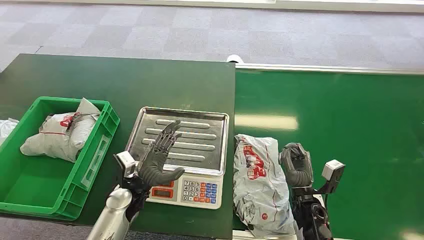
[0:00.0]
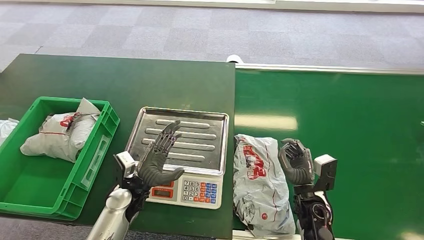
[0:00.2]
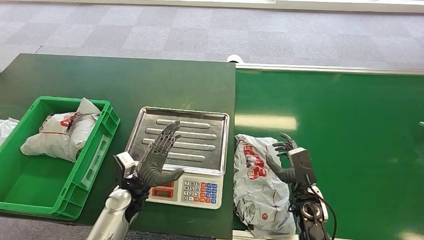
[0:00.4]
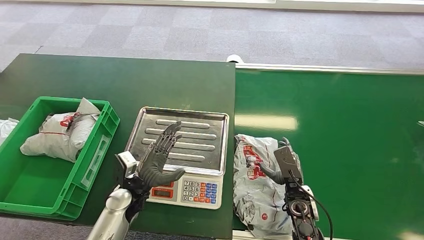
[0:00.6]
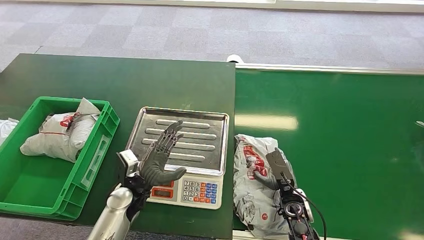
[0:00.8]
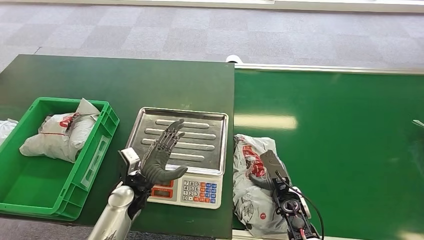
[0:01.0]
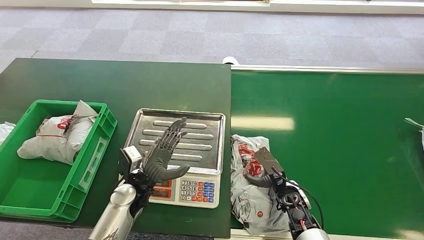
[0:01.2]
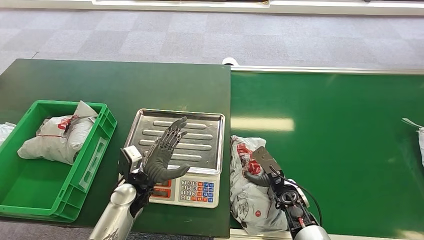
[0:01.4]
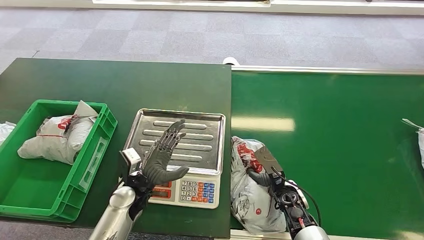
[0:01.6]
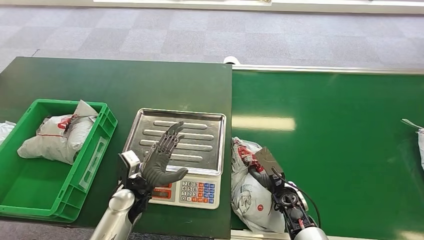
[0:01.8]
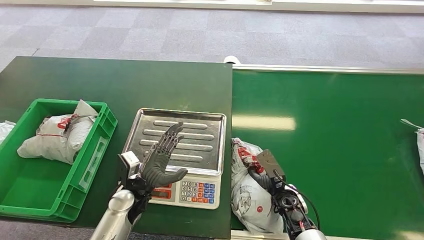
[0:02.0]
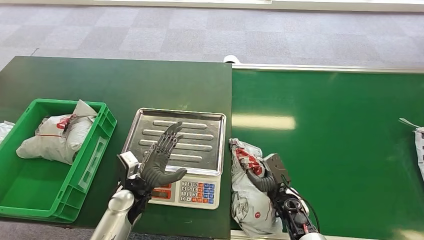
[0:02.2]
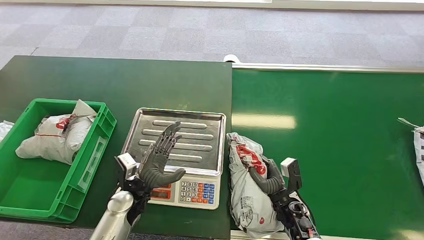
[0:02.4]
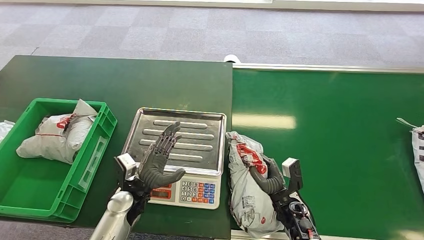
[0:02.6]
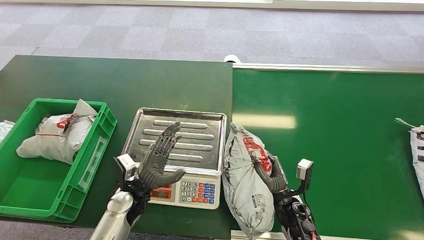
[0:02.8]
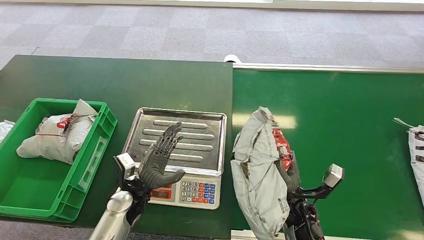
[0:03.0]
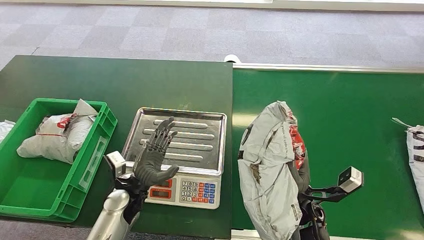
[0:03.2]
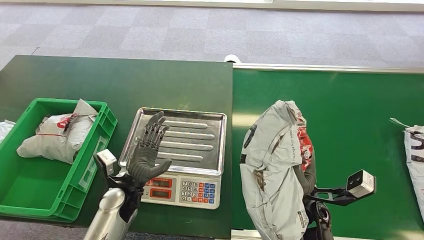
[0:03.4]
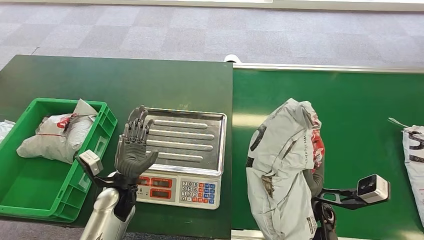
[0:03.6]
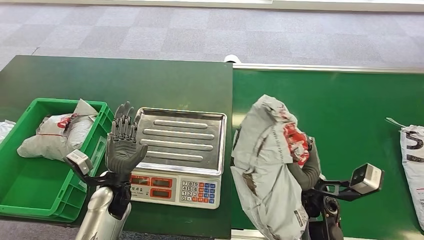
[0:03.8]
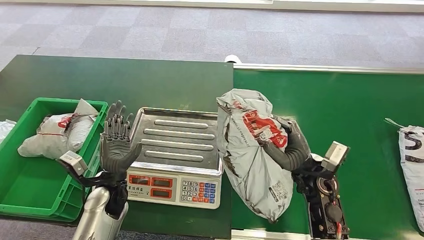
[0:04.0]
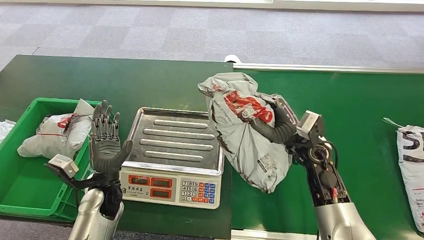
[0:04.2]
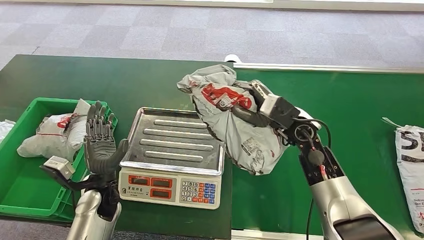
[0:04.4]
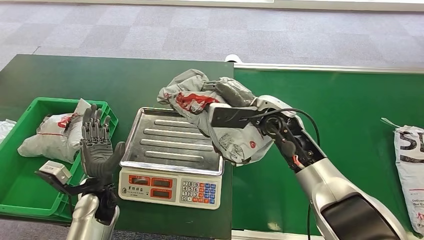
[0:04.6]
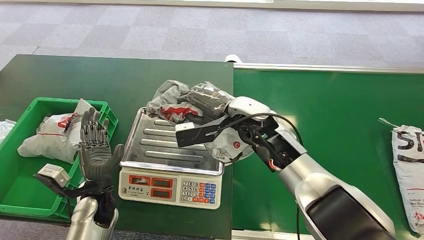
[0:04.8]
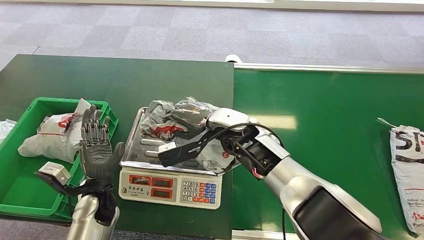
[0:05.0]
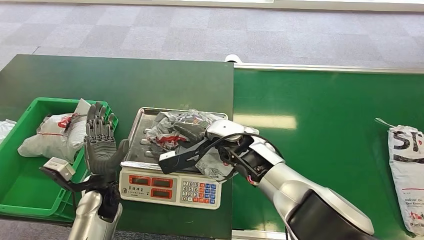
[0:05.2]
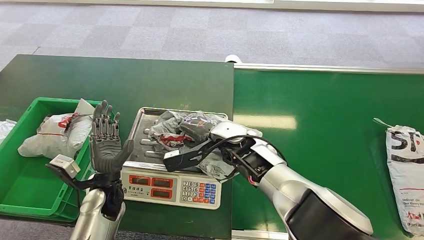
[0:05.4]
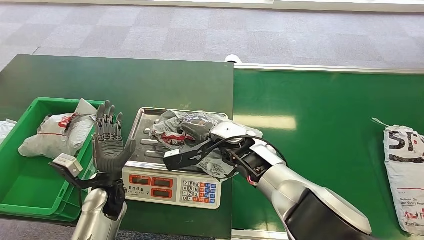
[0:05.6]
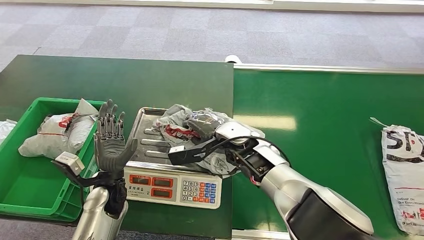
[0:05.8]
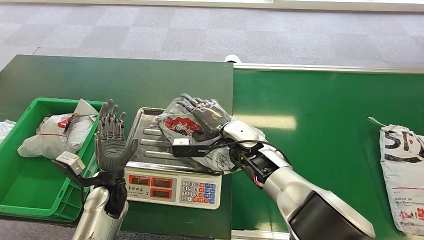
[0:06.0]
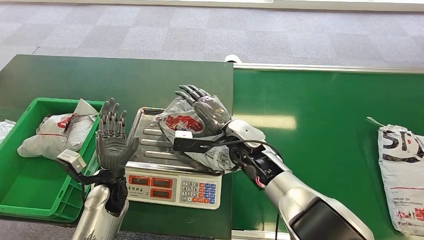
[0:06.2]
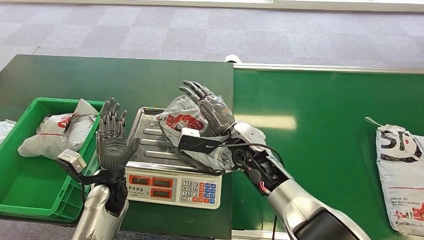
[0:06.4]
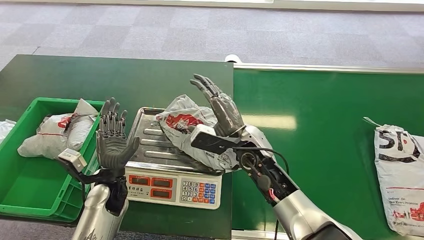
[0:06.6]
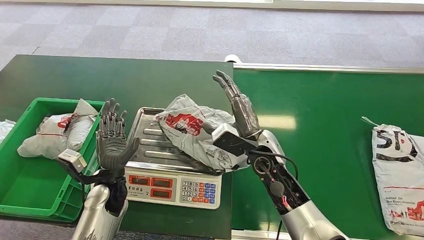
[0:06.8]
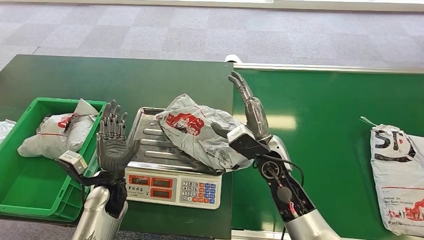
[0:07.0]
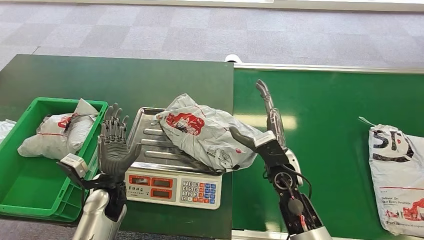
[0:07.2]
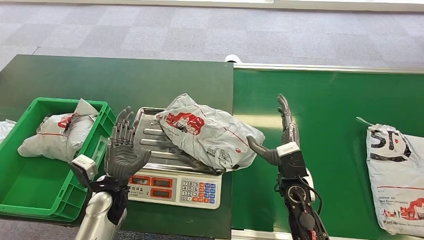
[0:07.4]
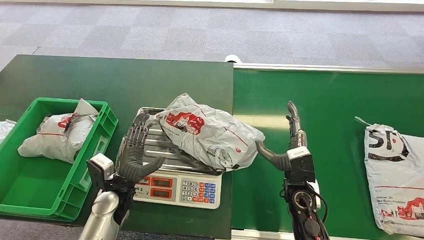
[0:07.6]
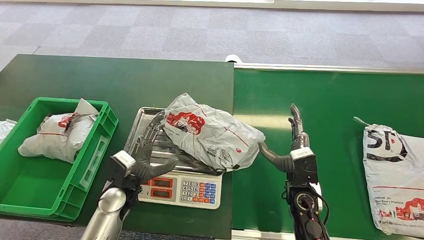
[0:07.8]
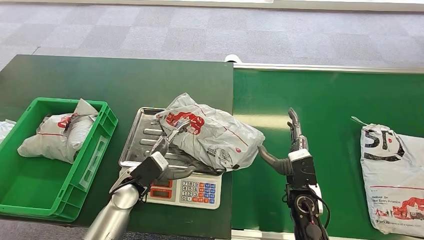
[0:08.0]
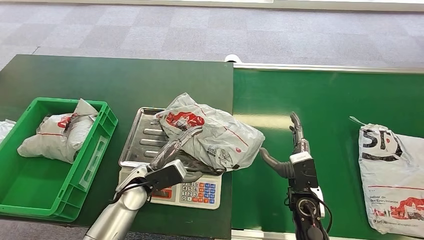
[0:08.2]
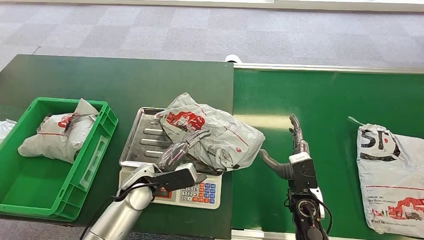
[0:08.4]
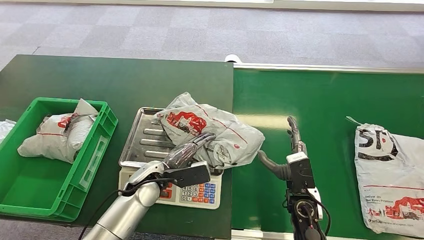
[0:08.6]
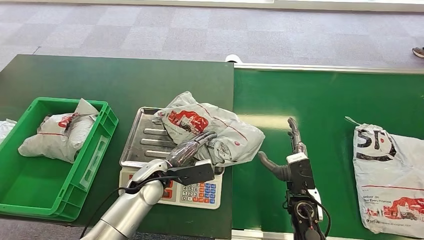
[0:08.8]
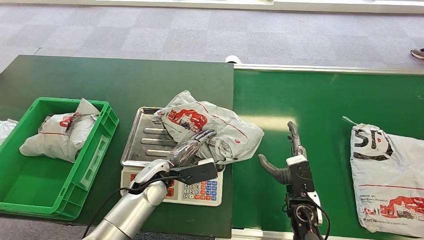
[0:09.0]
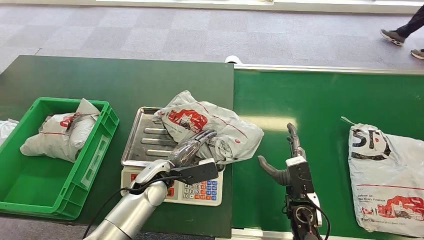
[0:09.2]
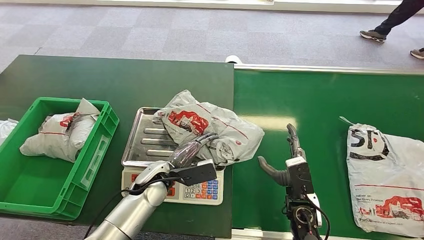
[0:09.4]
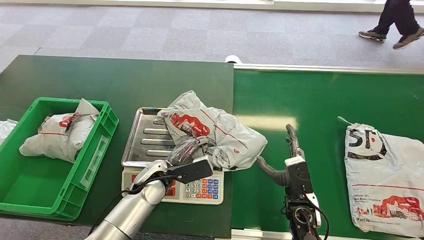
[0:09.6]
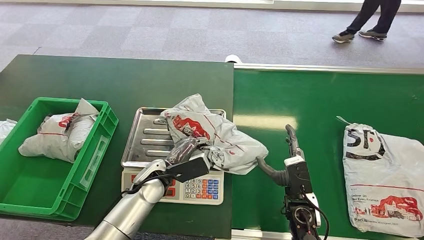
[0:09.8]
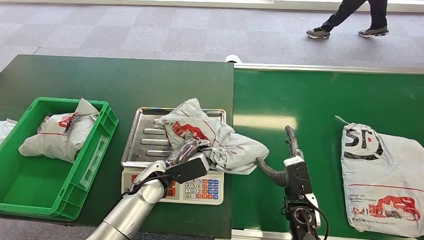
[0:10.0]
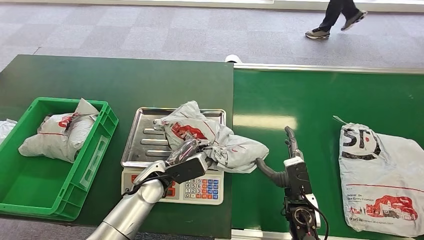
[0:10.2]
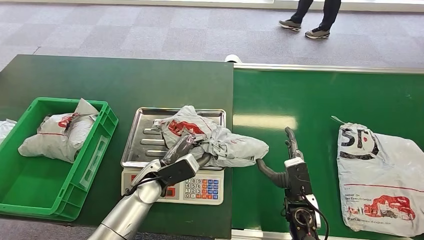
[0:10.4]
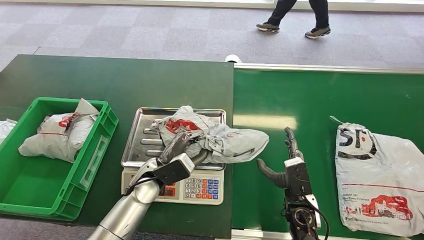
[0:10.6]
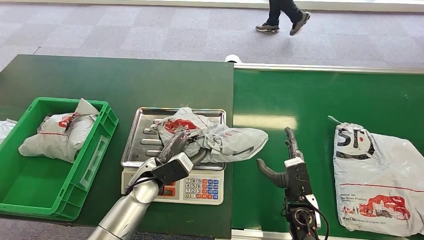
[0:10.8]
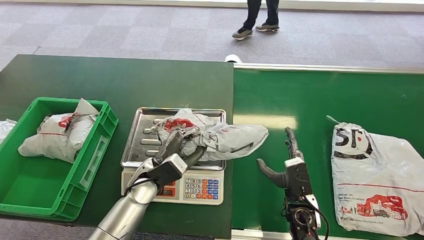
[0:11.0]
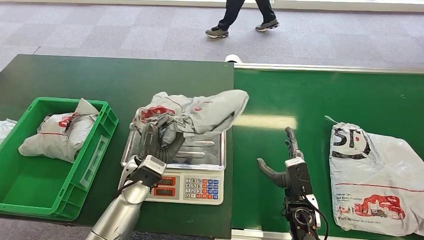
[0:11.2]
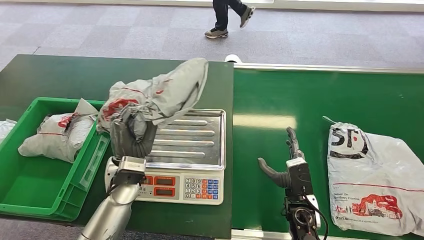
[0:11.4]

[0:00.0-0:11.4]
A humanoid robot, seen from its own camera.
Step, 0:00.0 to 0:03.8: Pick up the package from the conveyor belt.
Step, 0:04.8 to 0:07.0: Place the package onto the inbound machine.
0:05.6 to 0:07.2: The right hand travels to the right and backward by approximately 10 cm.
0:07.2 to 0:08.6: The left hand shifts some 10 cm to the right. The right hand goes approximately 10 cm downward and to the right.
0:08.6 to 0:10.0: There are only small adjustments of the hands.

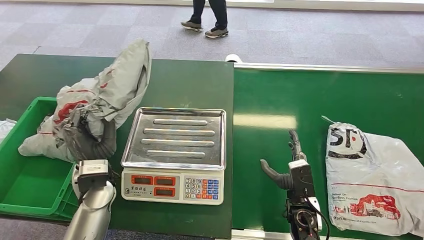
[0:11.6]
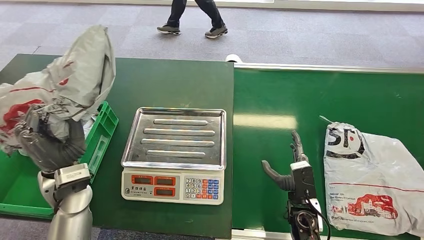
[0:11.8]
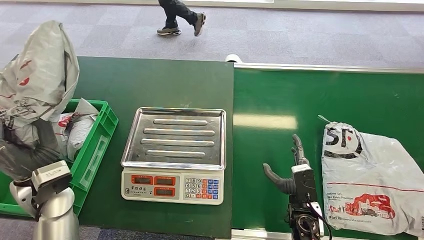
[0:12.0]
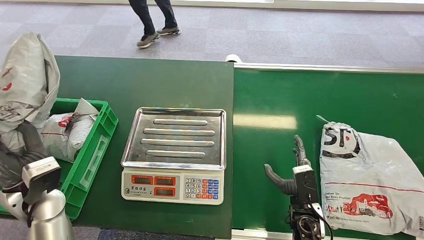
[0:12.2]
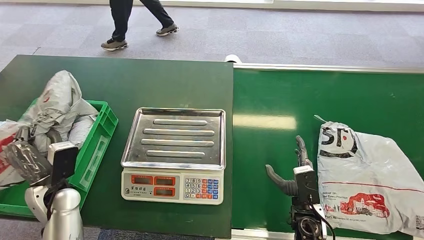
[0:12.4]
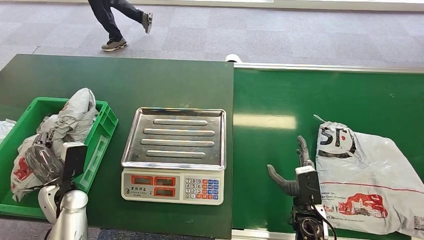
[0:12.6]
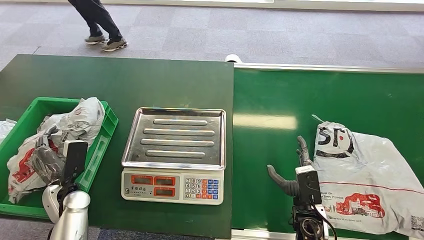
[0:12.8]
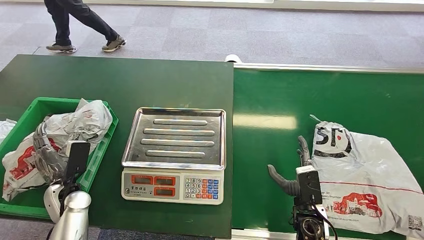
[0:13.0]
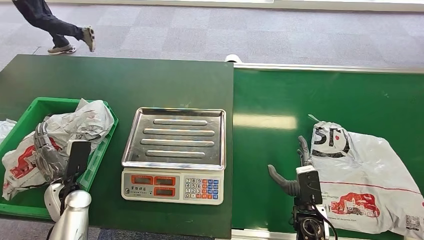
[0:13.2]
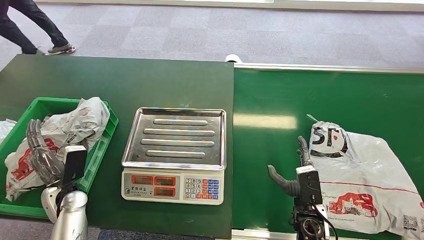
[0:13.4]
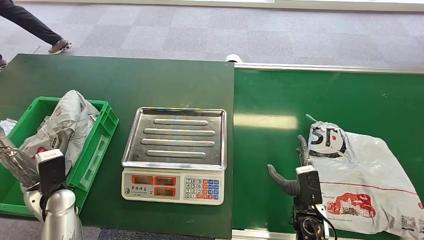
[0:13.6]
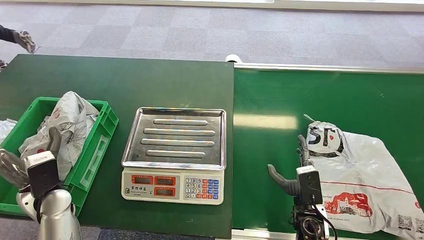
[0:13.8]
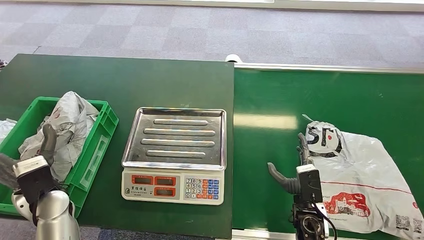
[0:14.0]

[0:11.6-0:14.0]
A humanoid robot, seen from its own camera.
Step, 0:12.6 to 0:14.0: Place the package into the parcel locker.
0:12.8 to 0:14.0: The left hand heads upward, covering about 10 cm.
